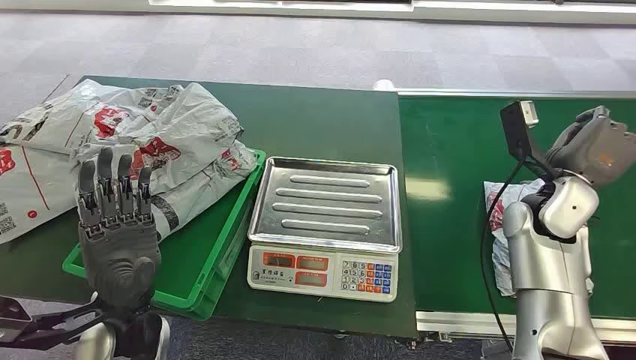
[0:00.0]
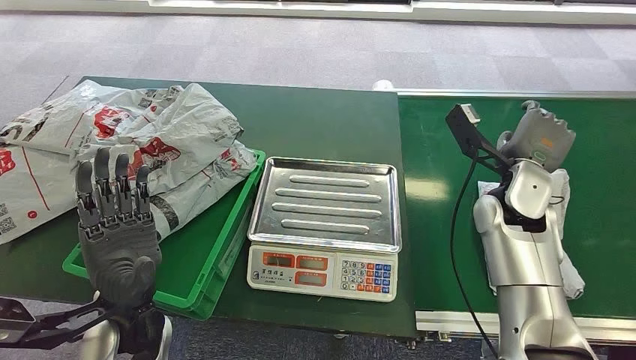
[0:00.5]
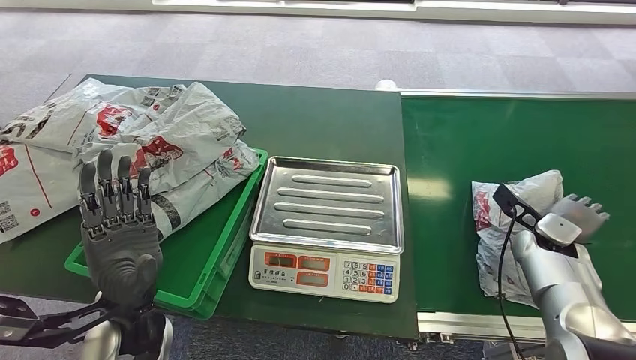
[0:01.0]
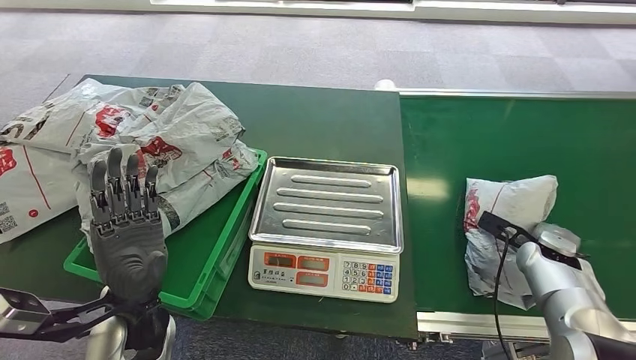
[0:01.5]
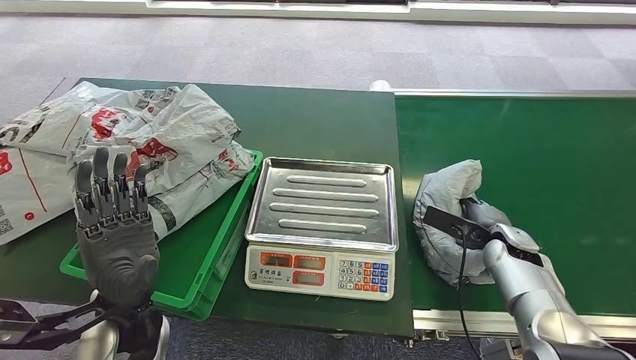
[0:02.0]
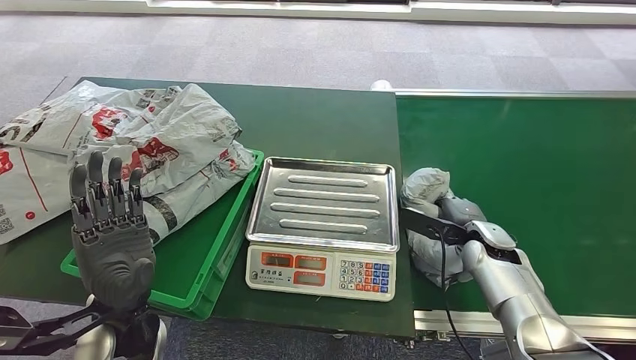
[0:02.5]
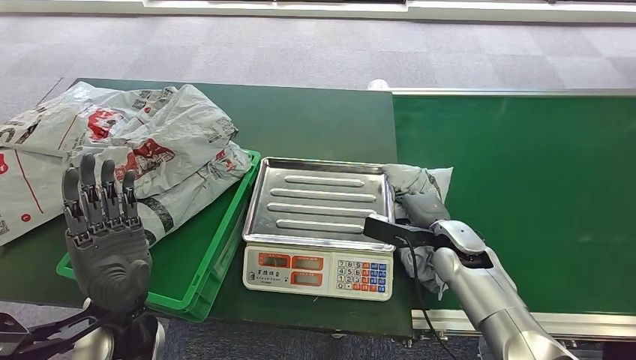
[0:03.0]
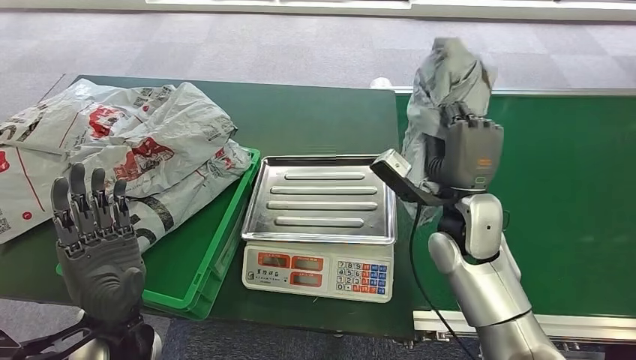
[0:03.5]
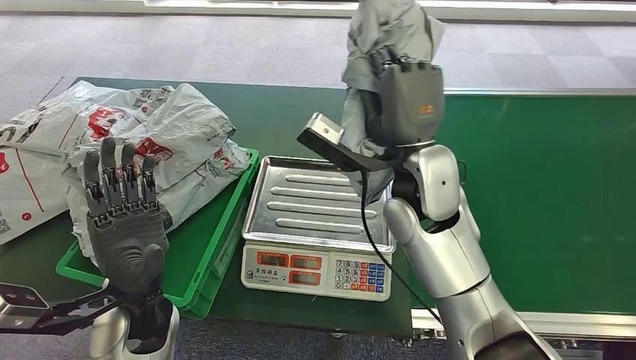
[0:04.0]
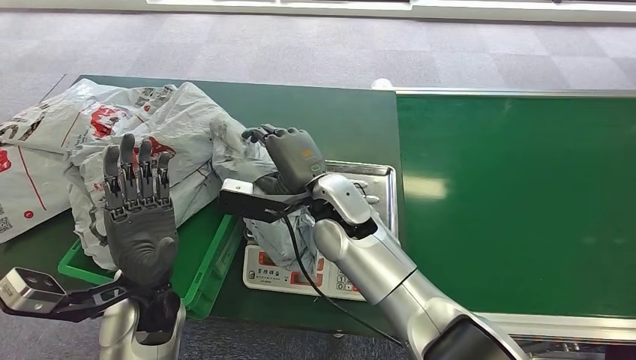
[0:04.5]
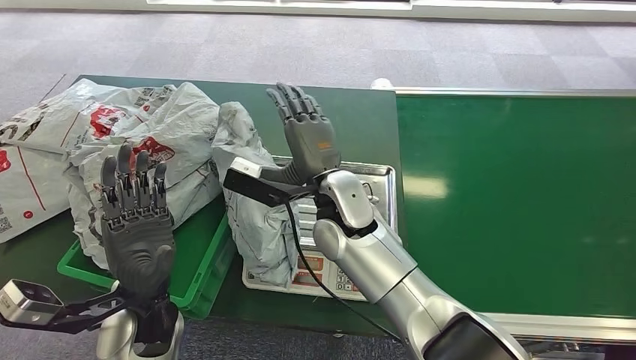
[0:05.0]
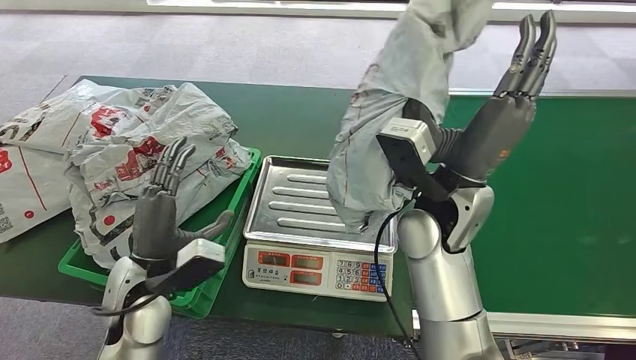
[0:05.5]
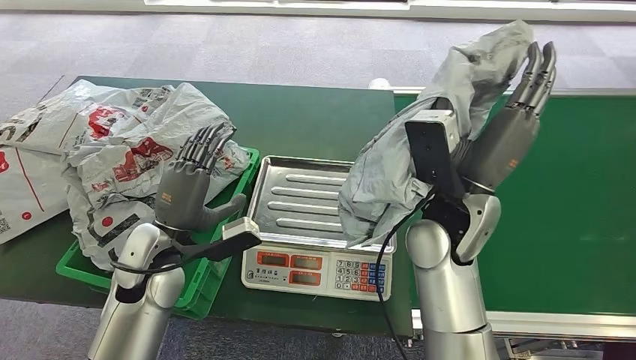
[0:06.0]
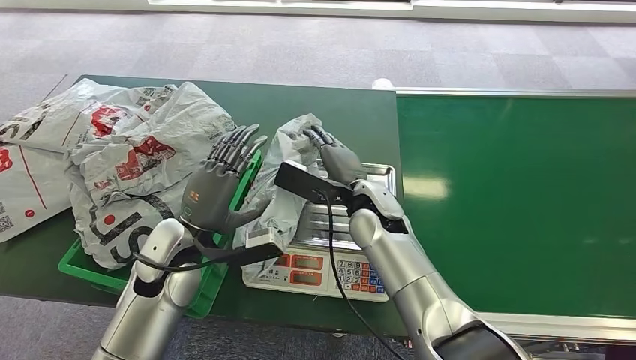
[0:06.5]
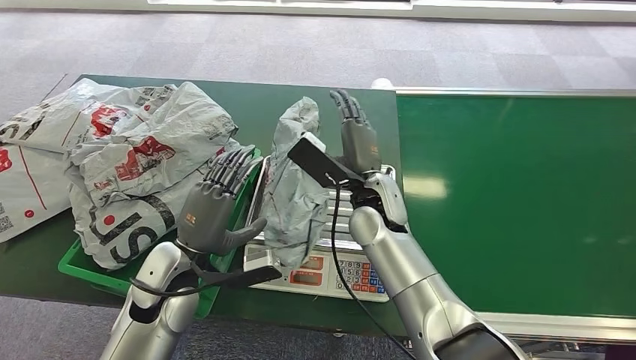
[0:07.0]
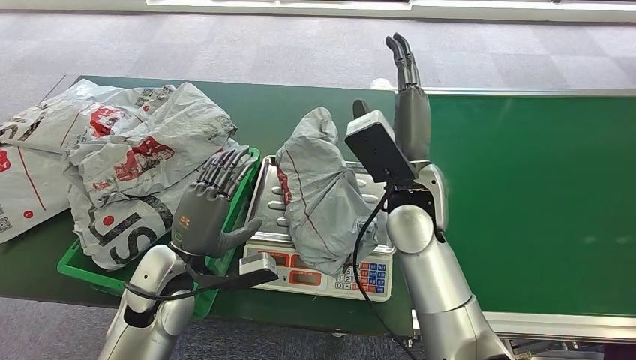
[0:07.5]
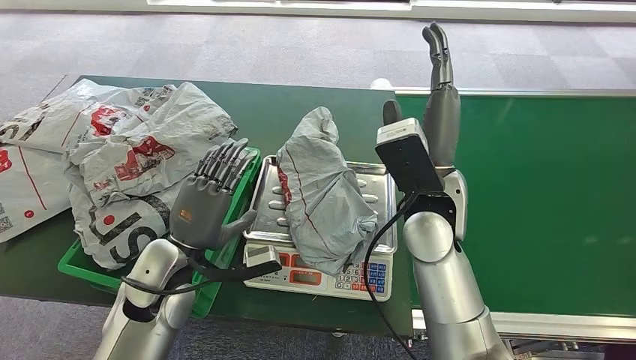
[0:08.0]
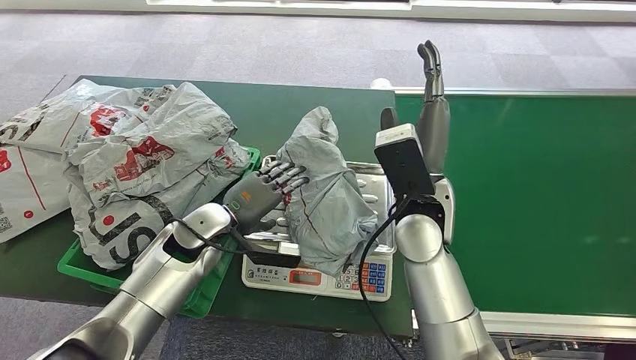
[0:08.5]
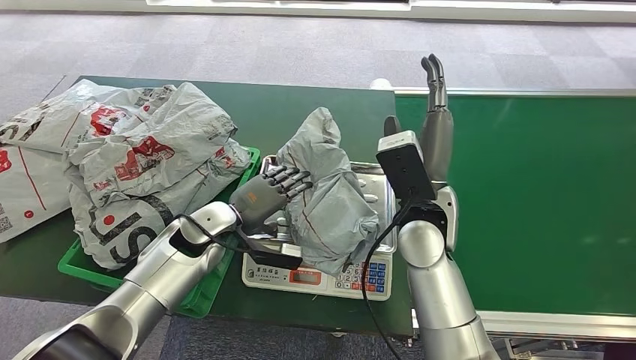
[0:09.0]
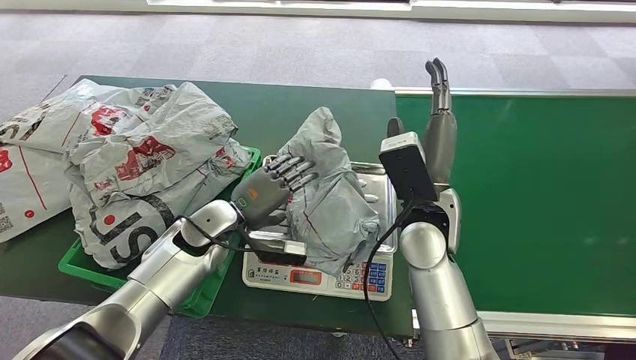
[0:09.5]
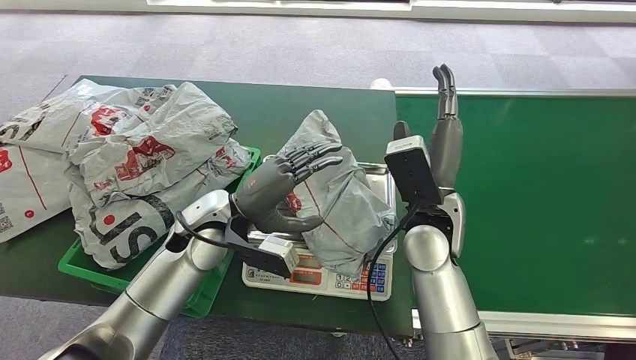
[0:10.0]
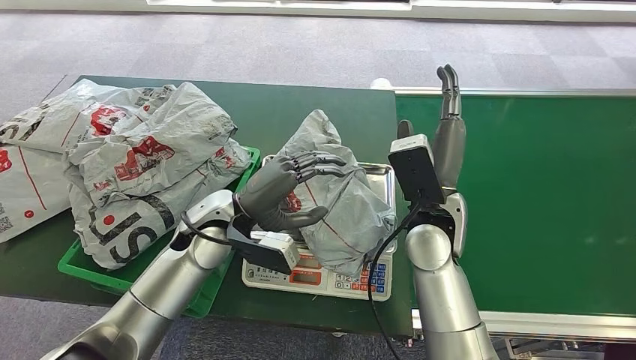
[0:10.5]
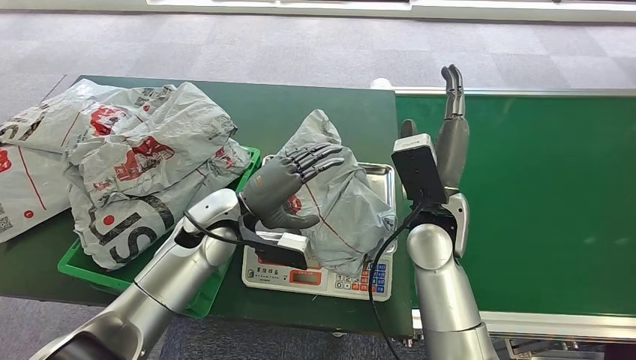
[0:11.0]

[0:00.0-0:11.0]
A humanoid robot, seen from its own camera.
Task of the whole recording: Weigh the package on the weighing device and place it in the left basket.
Step, 0:00.0 to 0:04.0: Pick up the package from the conveyor belt.
Step, 0:04.5 to 0:08.0: Place the package onto the inbound machine.
0:07.5 to 0:09.0: The left hand heads forward, covering roughly 10 cm.
0:09.0 to 0:11.0: The left hand moves approximately 5 cm.

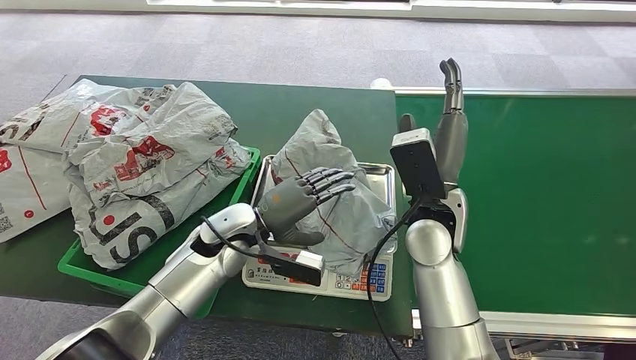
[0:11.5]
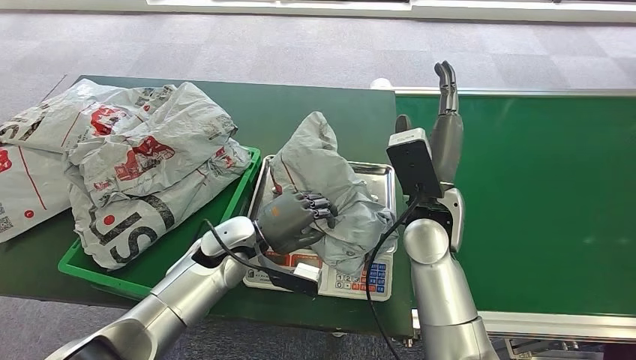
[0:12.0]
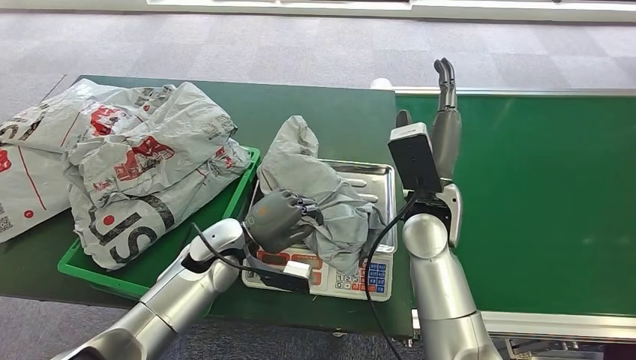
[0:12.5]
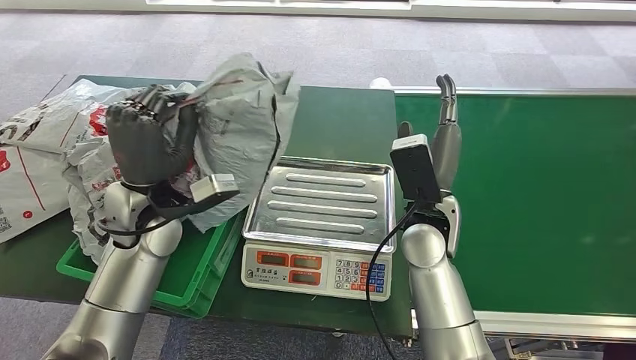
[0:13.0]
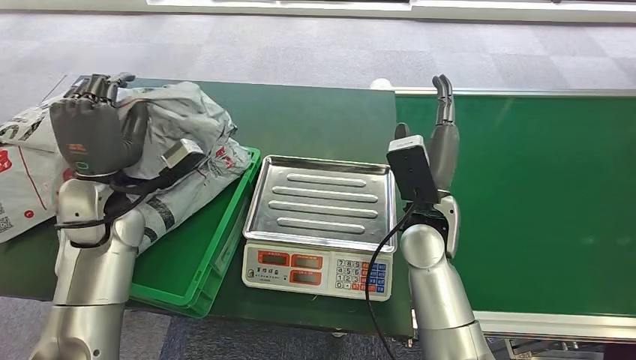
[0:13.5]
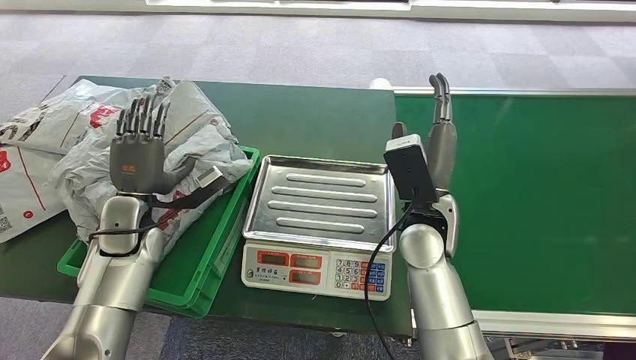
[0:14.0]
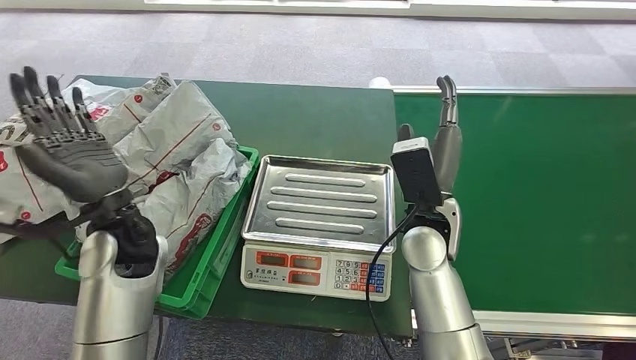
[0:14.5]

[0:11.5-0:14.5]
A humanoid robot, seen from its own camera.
Task of the whole recording: Weigh the package on the weighing device and place it in the left basket.
Step, 0:11.5 to 0:13.5: Pick up the package from the inbound machine.

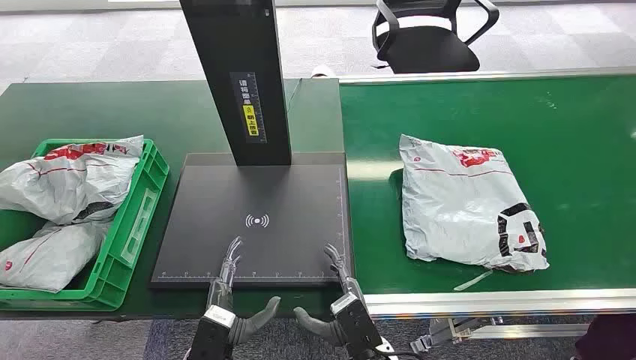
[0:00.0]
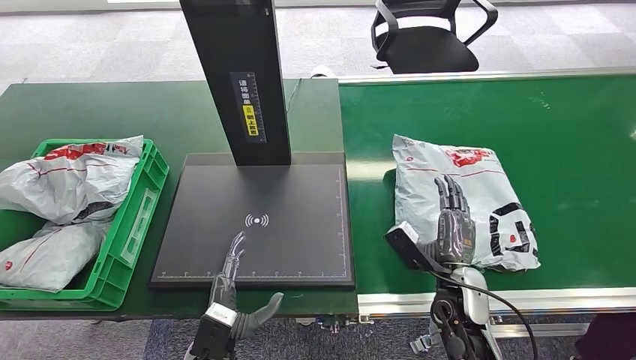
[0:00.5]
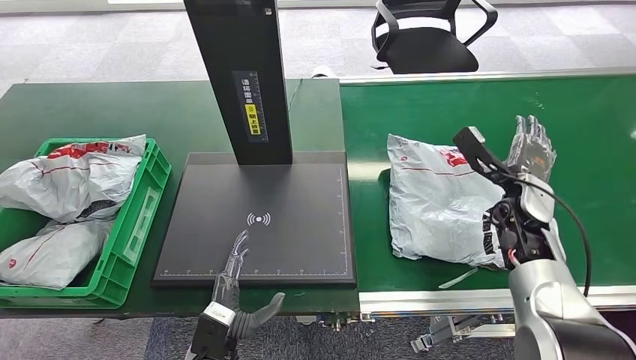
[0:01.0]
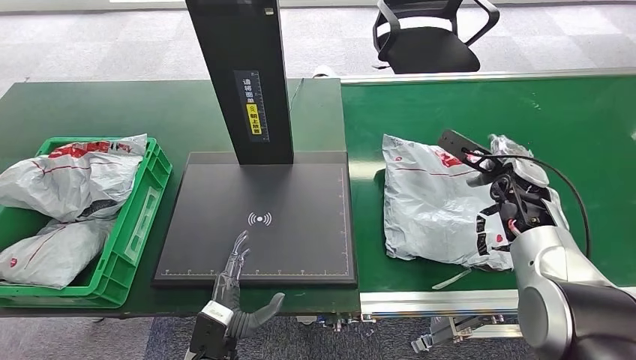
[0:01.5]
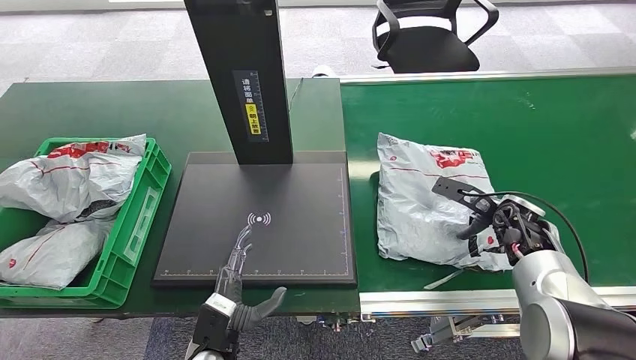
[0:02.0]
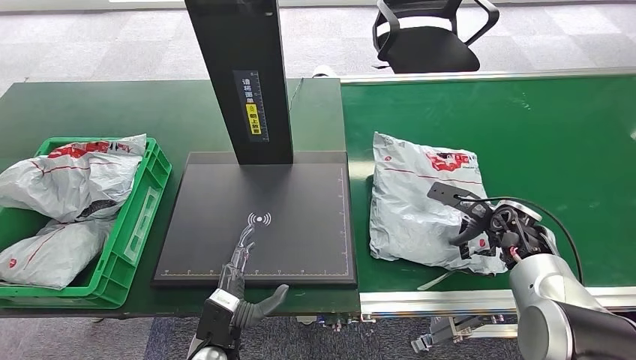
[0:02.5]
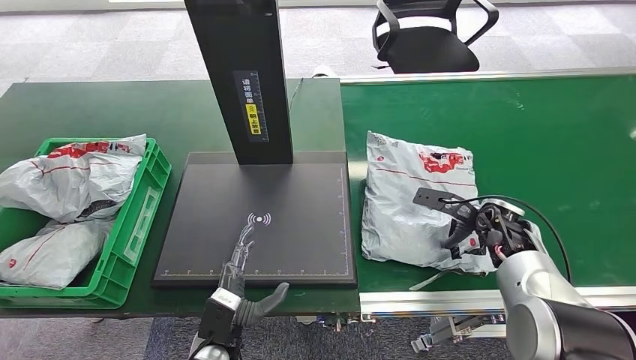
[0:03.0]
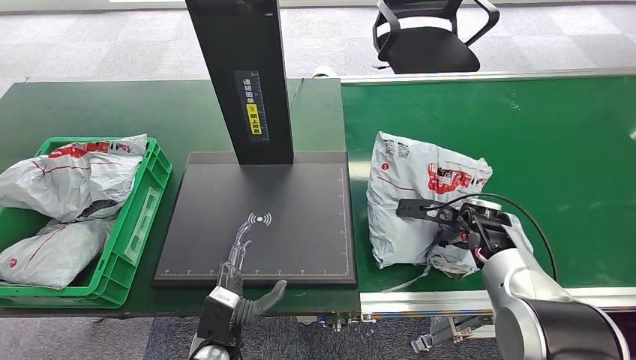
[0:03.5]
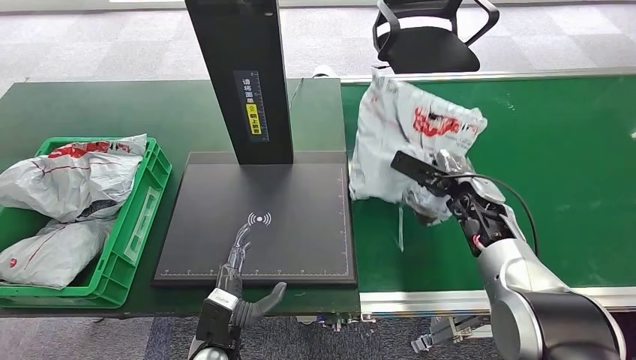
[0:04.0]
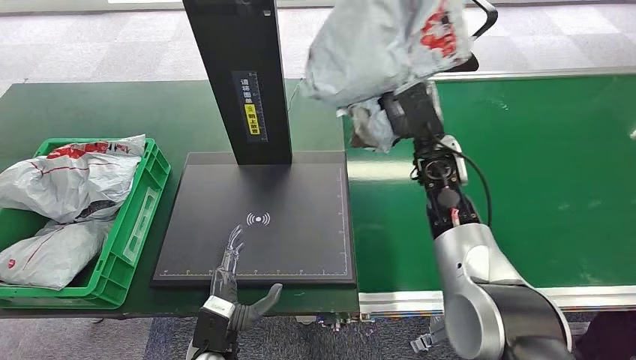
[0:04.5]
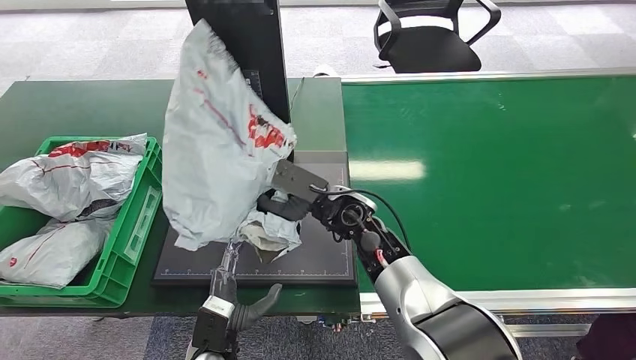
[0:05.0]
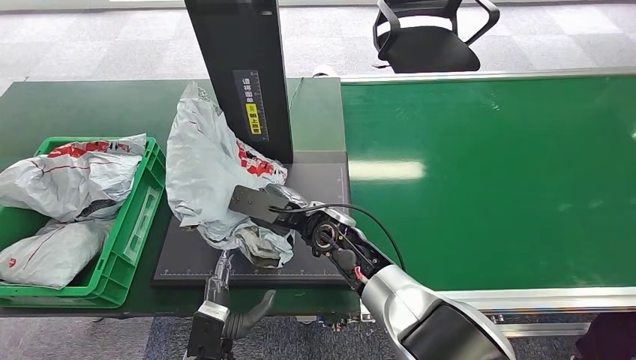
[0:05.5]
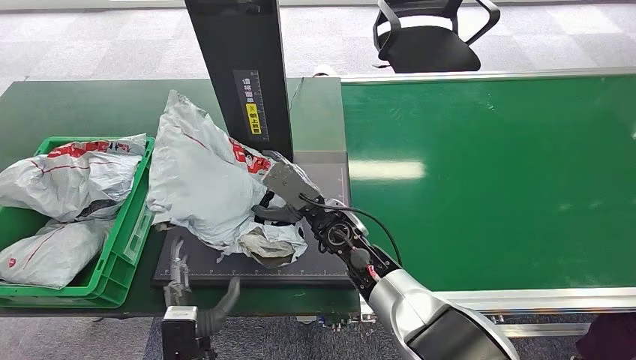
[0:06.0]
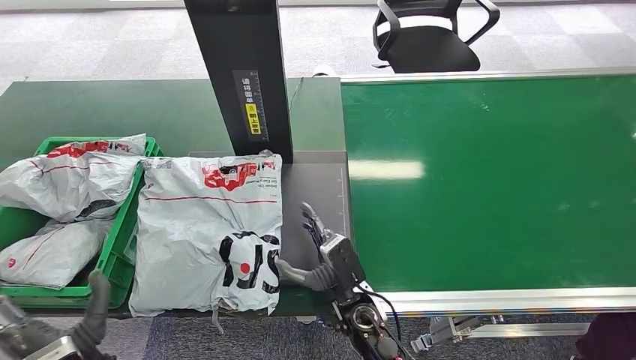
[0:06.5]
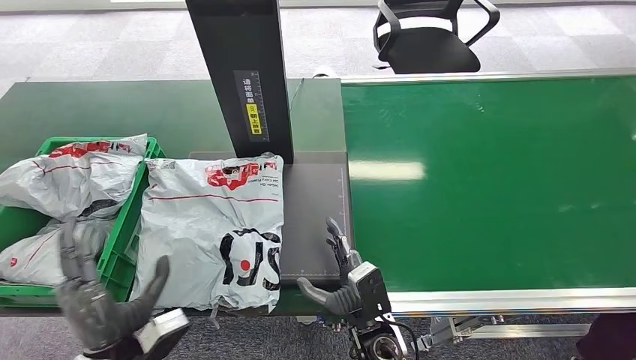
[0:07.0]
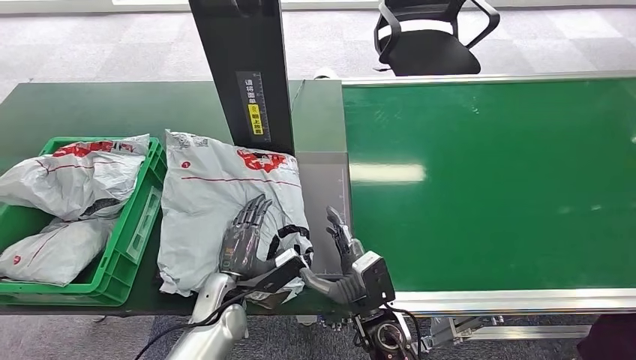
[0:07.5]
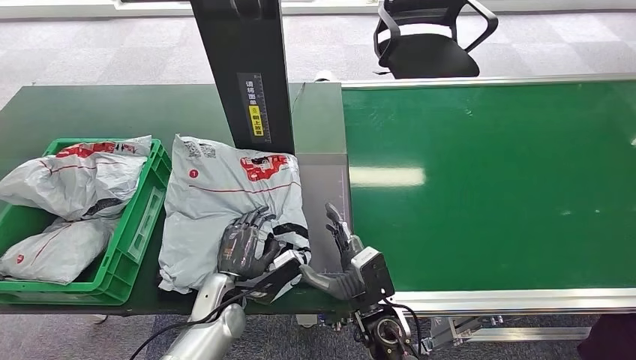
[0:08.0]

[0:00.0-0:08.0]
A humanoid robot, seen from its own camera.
Task of the whole recording: Weigh the package on the weighing device and place it in the left basket.
Step, 0:00.0 to 0:03.5: Pick up the package from the conveyor belt.
Step, 0:04.5 to 0:07.0: Place the package onto the inbound machine.
0:02.0 to 0:04.0: The right hand moves to the left, approximately 5 cm.
